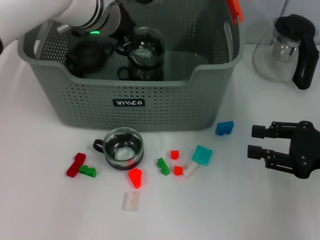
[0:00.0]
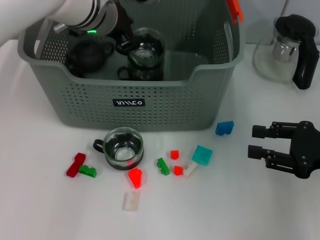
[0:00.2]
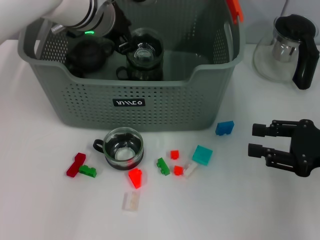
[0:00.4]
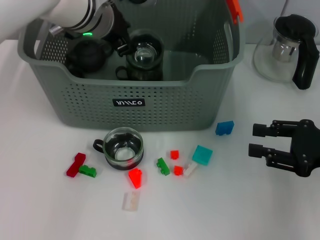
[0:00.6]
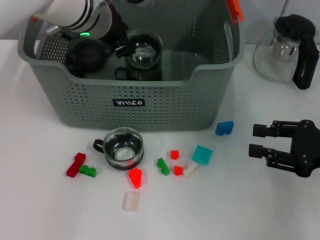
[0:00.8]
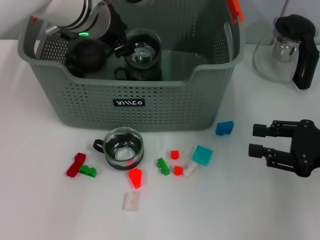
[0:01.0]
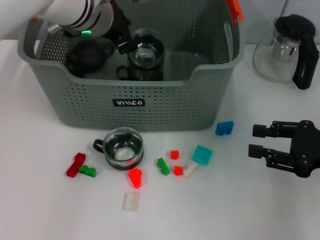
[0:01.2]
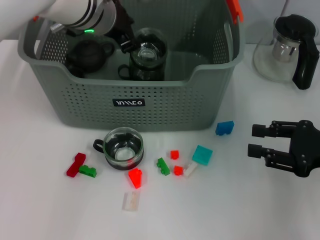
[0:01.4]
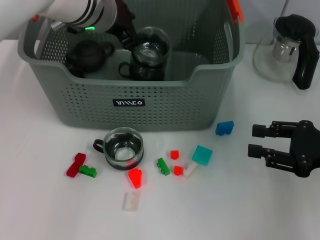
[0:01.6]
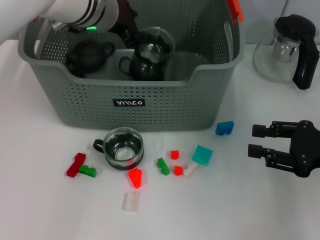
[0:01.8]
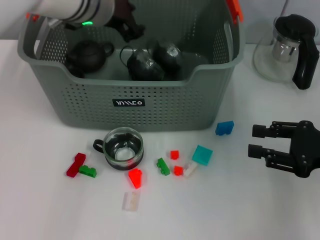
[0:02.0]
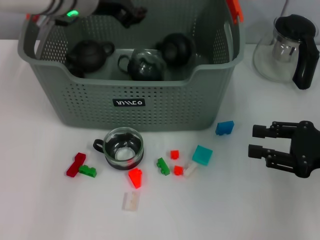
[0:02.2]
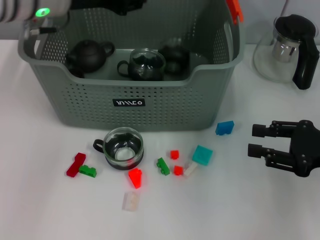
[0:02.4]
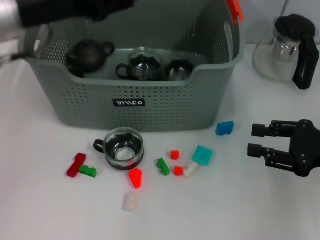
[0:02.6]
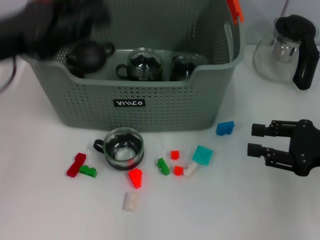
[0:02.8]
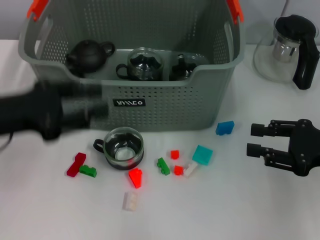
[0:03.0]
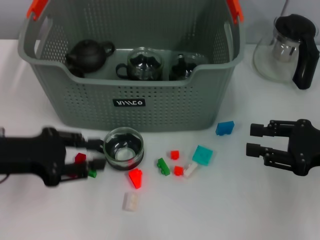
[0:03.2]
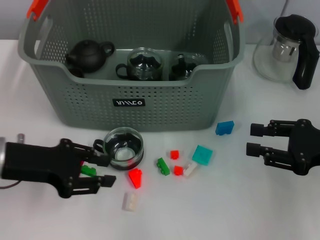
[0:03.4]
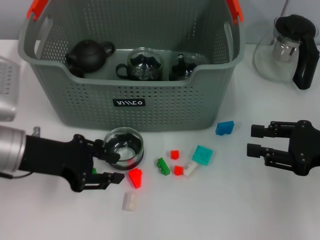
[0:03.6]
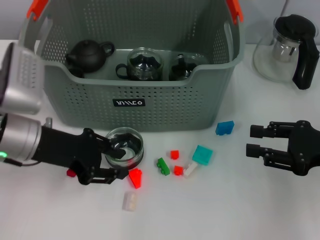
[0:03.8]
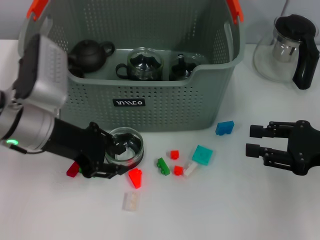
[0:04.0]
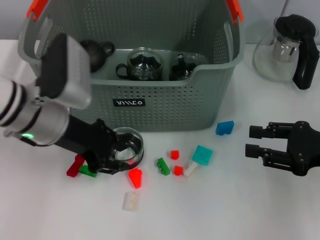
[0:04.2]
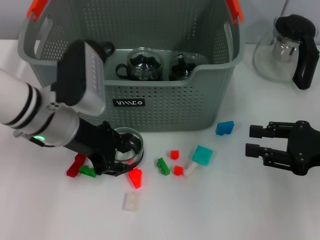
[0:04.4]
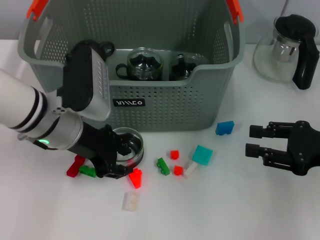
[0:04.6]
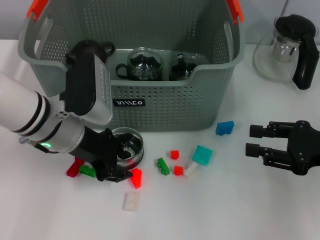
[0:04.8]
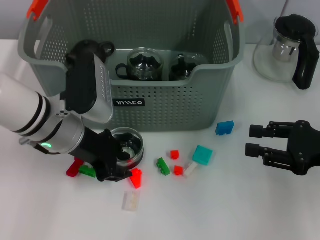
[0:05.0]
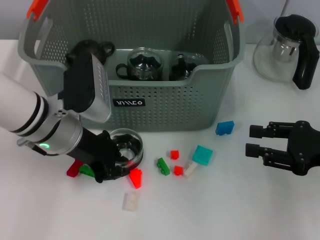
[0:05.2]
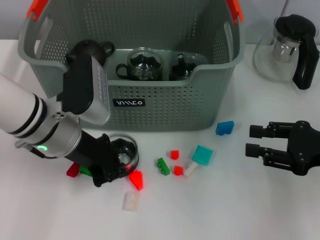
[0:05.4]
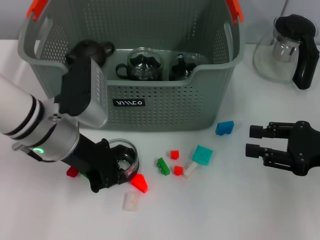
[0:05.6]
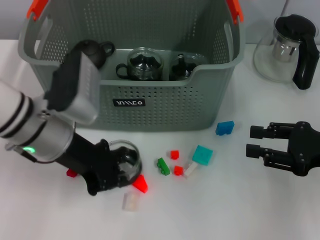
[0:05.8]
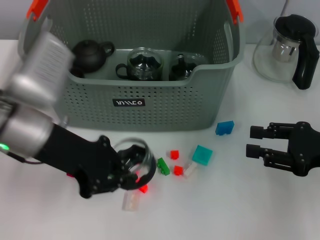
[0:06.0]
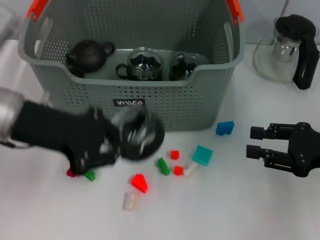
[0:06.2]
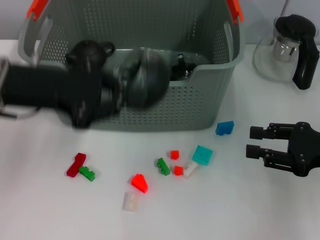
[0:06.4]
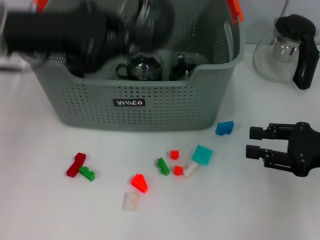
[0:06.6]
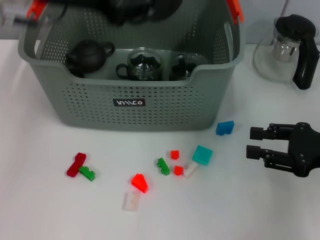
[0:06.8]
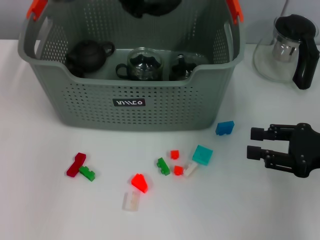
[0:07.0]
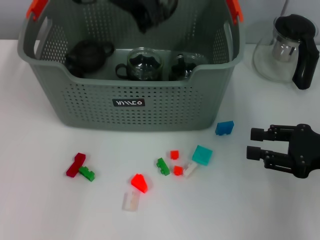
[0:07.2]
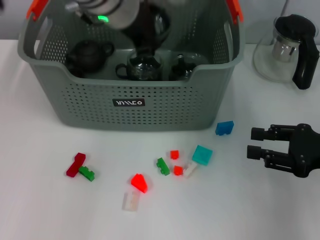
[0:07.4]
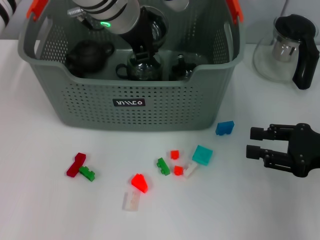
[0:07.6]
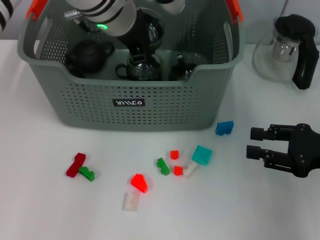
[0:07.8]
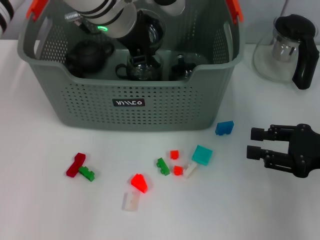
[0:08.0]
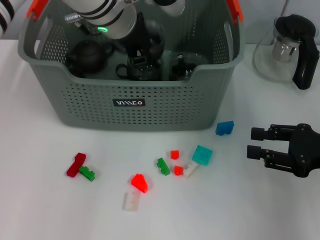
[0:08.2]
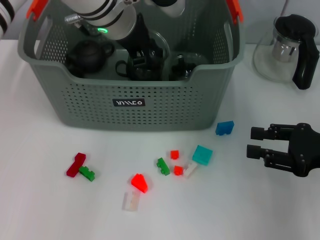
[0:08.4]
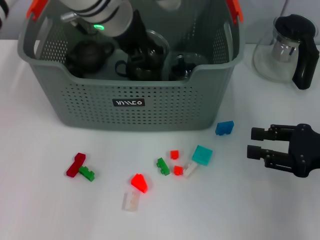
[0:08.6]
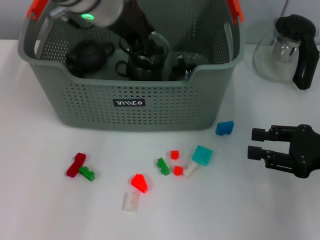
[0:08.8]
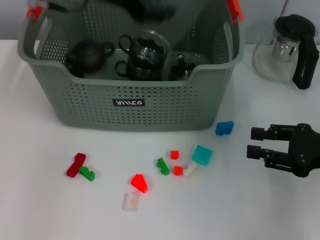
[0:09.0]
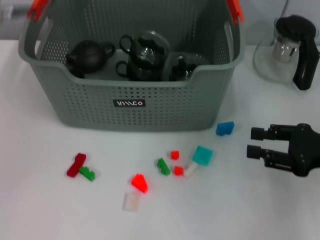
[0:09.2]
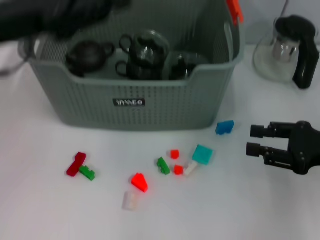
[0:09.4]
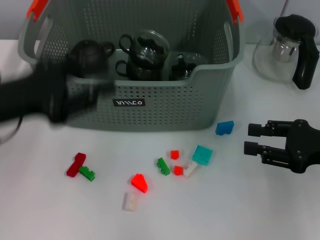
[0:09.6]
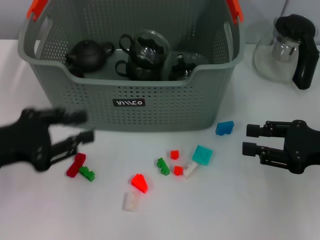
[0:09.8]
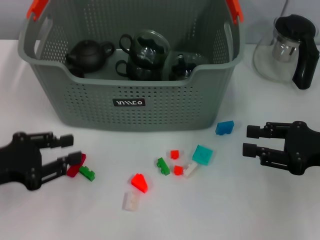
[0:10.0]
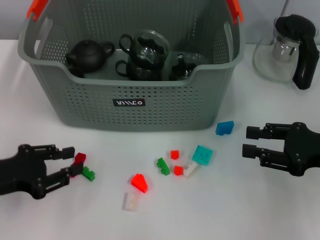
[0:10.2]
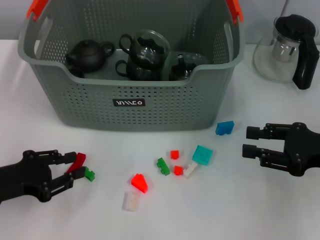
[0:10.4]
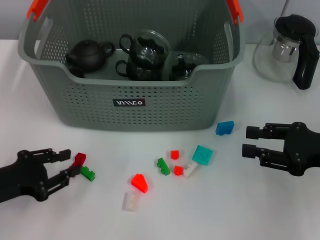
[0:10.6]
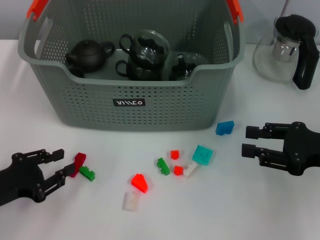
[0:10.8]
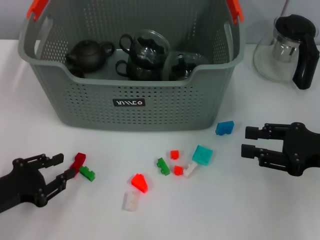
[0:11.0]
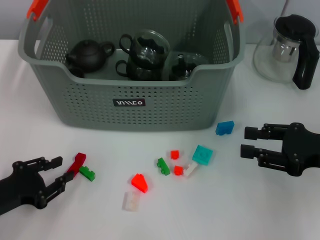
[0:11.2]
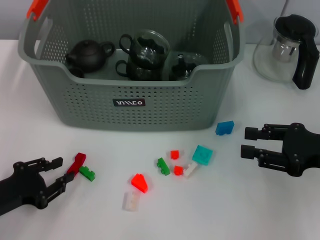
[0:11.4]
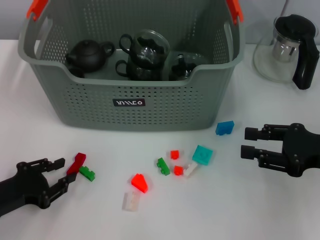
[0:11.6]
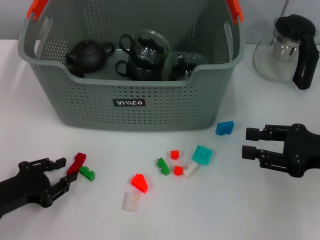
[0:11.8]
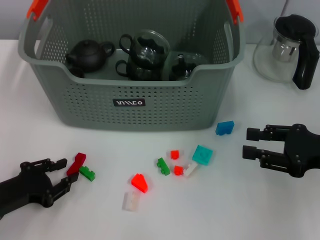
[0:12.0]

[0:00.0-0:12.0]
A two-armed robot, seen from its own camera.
Task of the whole recording: pick up the teacup on the table and place it into the storage bin, pick up the block on the table and place it into the storage bin.
Step, 0:02.0 to 0:05.2: Grasp the cup with left gripper.
Step, 0:05.6 to 0:08.6: Place the cup in the storage box with left gripper.
0:00.0 to 0:01.6: There are only small adjustments of the grippers.
0:01.6 to 0:03.0: The left gripper goes approximately 25 cm to the left and backward.
0:03.0 to 0:04.4: The left gripper moves to the right and forward, some 10 cm.
0:04.4 to 0:06.0: The left gripper ends up approximately 5 cm from where it was, and closes its fingers.
0:06.0 to 0:07.6: The left gripper goes about 20 cm forward, to the right and upward.
0:07.6 to 0:09.0: The left gripper heads to the left and upward, covering some 10 cm.
0:09.0 to 0:10.4: The left gripper moves downward, backward and to the left, some 30 cm.
0:10.4 to 0:12.0: The left gripper heads downward, covering some 5 cm.

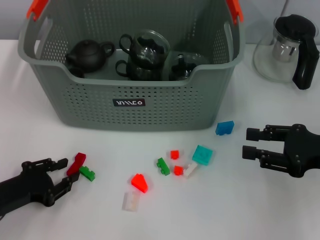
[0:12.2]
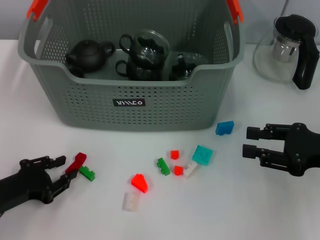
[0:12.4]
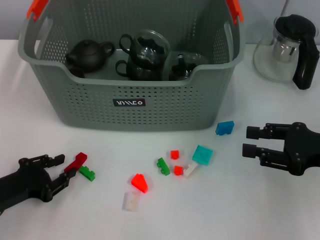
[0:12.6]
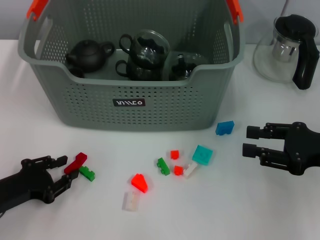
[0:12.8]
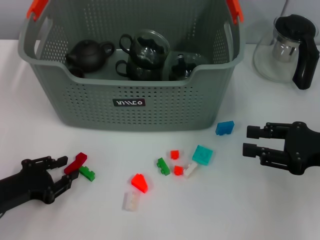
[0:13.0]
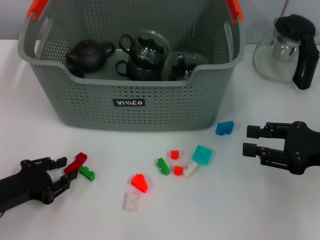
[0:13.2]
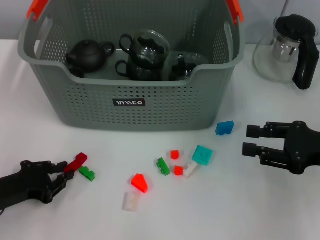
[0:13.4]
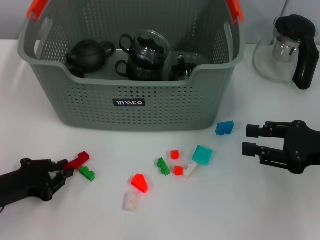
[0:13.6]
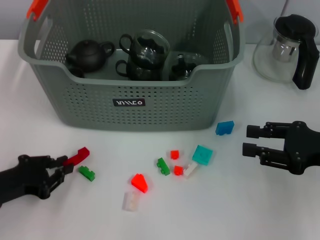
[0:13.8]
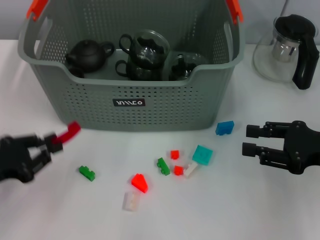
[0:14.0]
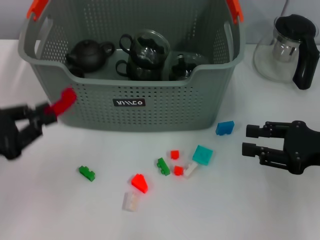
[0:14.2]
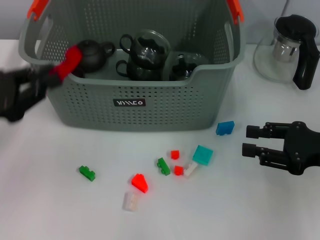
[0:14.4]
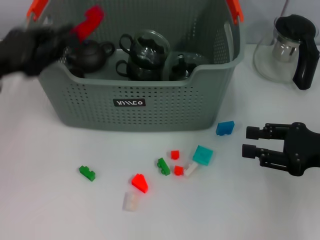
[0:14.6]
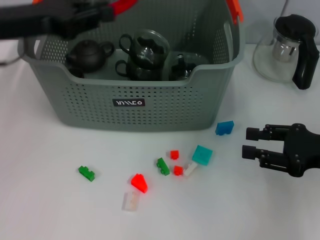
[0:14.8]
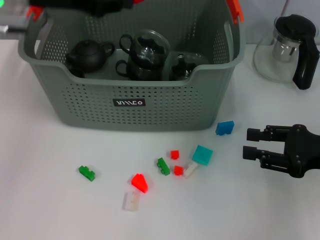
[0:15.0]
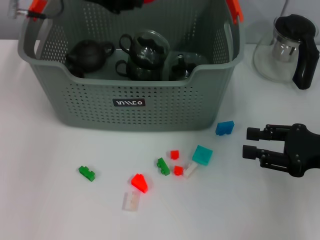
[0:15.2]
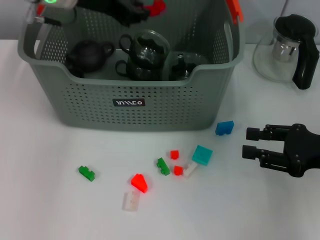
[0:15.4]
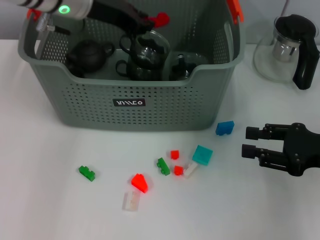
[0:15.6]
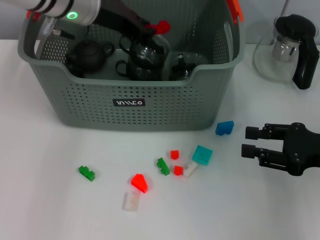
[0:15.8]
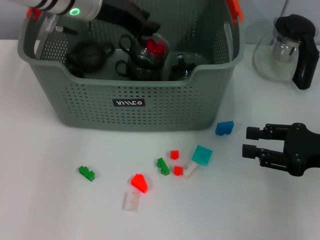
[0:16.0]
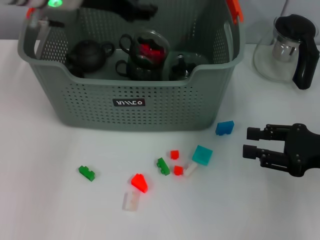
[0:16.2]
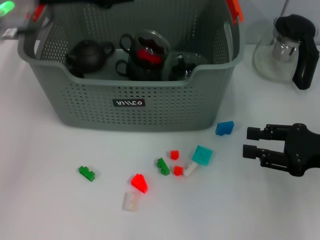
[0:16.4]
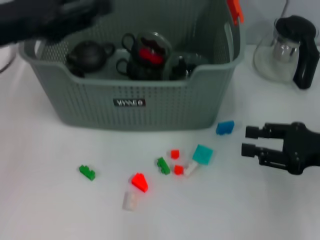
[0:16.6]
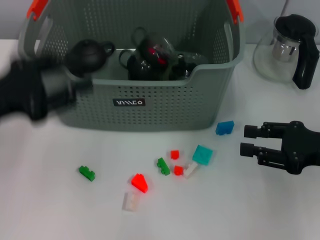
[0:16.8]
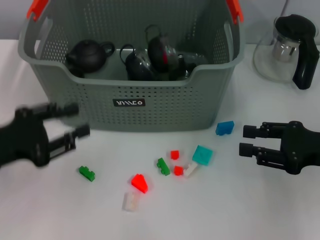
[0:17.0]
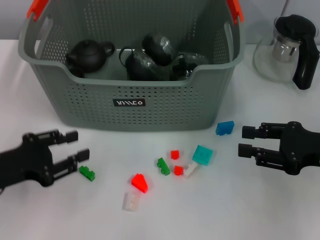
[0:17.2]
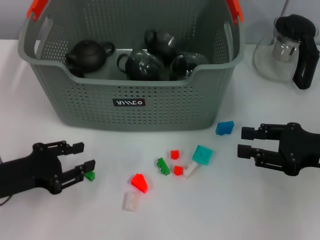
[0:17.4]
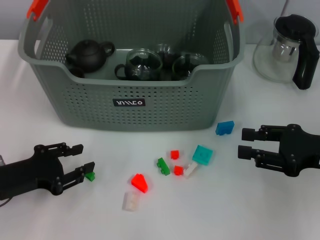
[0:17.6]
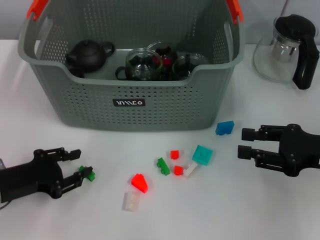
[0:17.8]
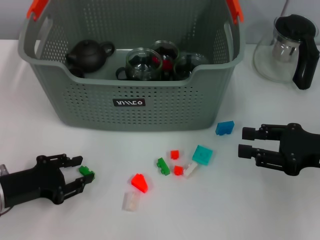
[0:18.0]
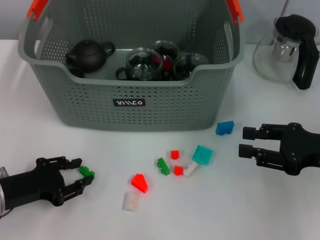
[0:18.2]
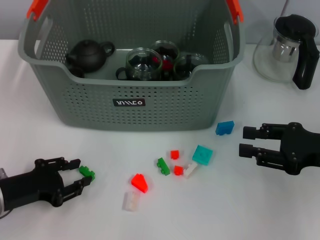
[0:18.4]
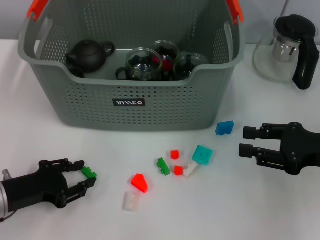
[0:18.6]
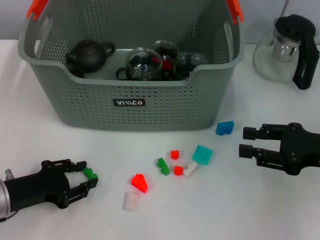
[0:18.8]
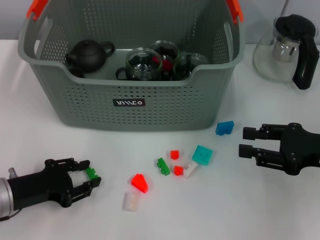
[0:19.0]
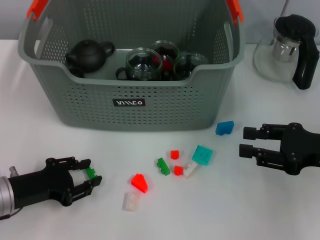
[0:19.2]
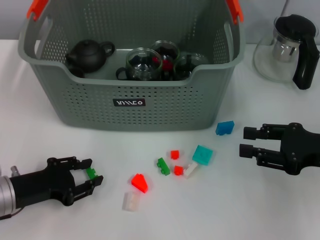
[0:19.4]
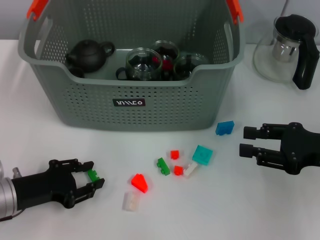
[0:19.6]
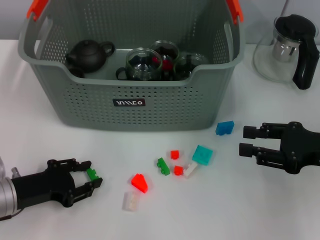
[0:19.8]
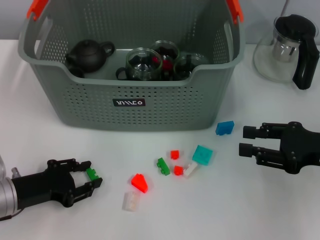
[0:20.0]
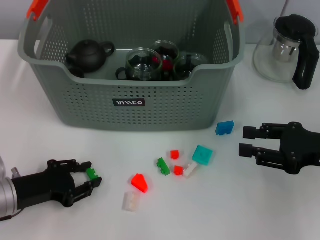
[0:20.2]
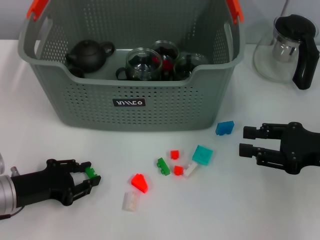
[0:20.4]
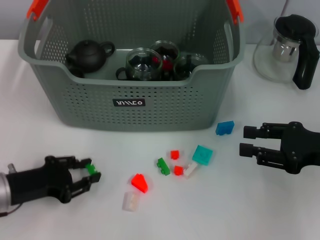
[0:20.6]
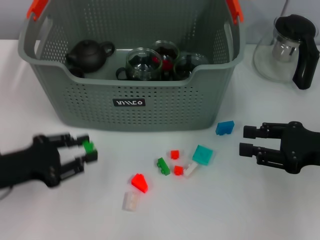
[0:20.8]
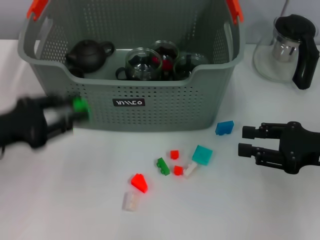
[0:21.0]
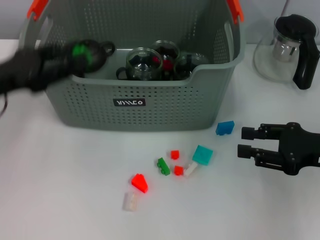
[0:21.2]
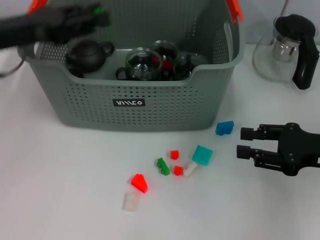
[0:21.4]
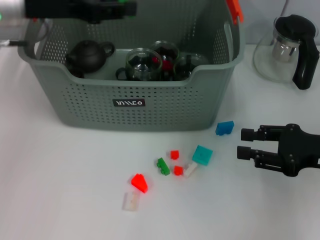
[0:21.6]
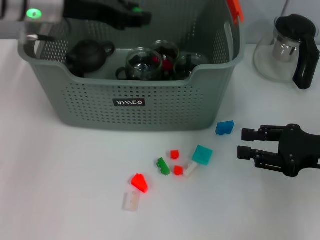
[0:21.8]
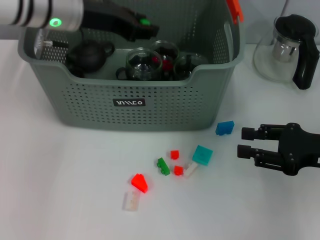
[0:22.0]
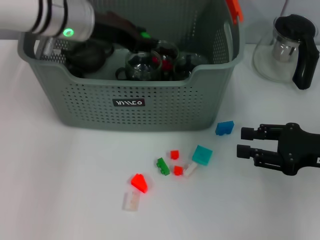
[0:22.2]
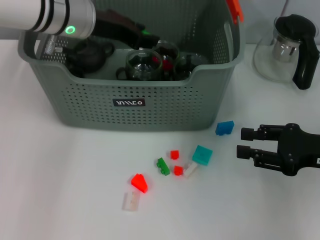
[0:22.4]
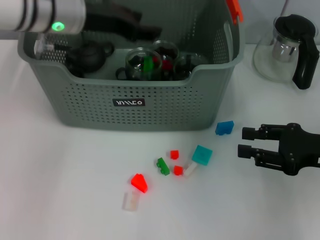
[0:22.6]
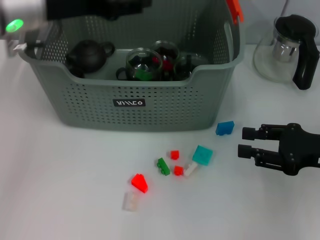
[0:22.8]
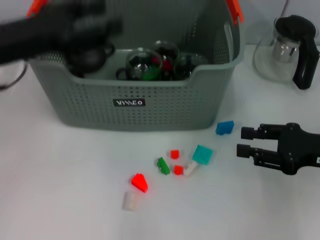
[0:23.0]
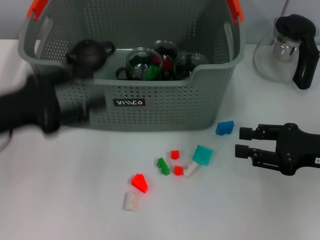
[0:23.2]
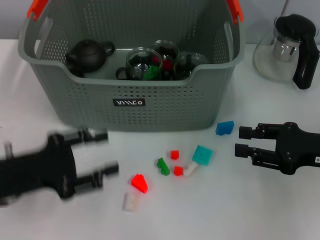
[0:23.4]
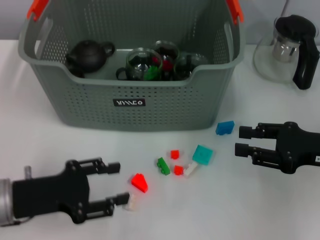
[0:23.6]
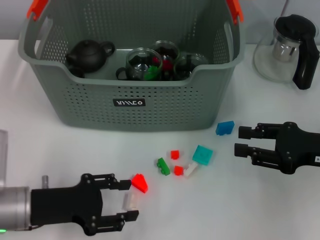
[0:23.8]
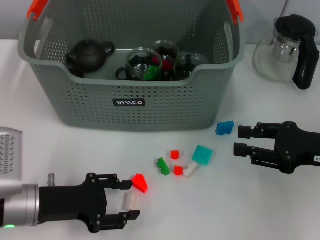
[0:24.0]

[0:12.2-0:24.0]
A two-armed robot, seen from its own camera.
Task of the whole recording: pick up the teacup on the table and place it into the storage bin, pick up the block on the table and place it into the storage bin.
Step, 0:13.6 to 0:16.0: Place the red block in the storage box with left gripper.
Step, 0:16.2 to 0:20.2: Grasp the green block with left gripper.
Step, 0:20.6 to 0:22.6: Place the green block in the storage box with left gripper.
0:12.2 to 0:13.6: The grippers make only small movements.
0:13.6 to 0:15.2: The left gripper moves upward, forward and to the right, about 35 cm.
0:15.2 to 0:16.6: The left gripper moves backward and to the left, roughly 15 cm.
0:16.6 to 0:18.2: The left gripper moves downward and backward, about 20 cm.
0:18.2 to 0:19.6: The grippers stay close to where they were, moving slightly.
0:19.6 to 0:21.0: The left gripper heads upward, covering some 10 cm.
0:21.0 to 0:22.6: The left gripper goes about 25 cm forward, to the right and upward.
0:22.6 to 0:24.0: The left gripper travels downward and backward by roughly 25 cm.
